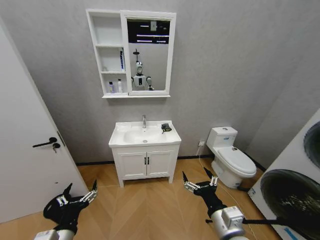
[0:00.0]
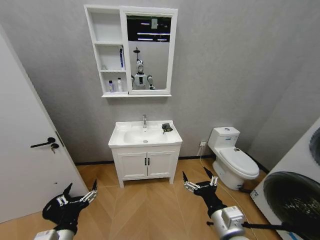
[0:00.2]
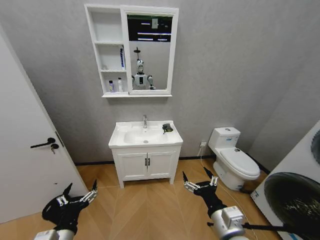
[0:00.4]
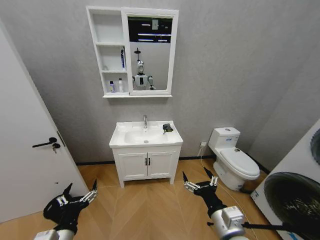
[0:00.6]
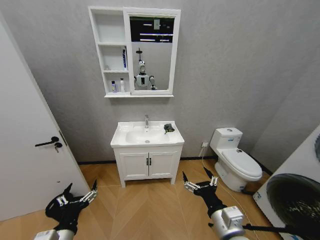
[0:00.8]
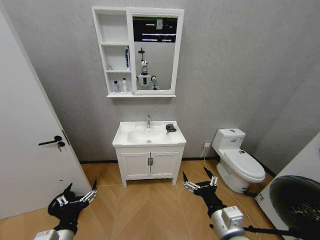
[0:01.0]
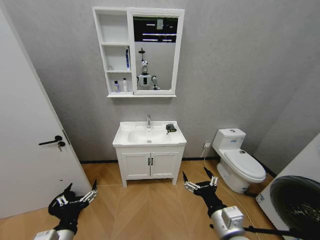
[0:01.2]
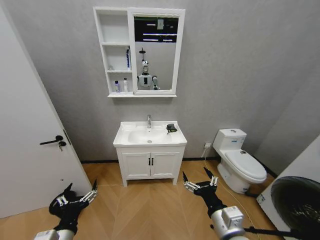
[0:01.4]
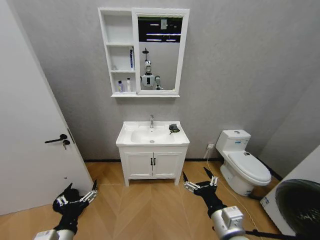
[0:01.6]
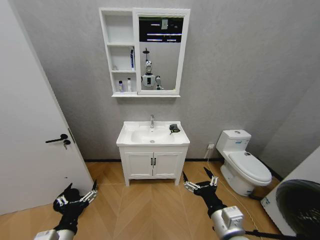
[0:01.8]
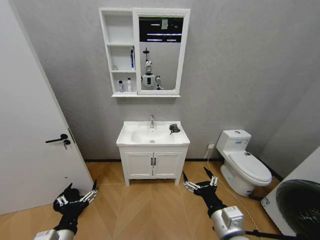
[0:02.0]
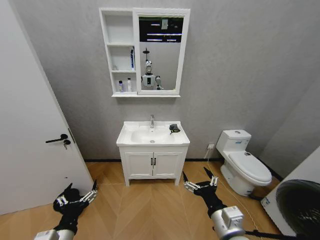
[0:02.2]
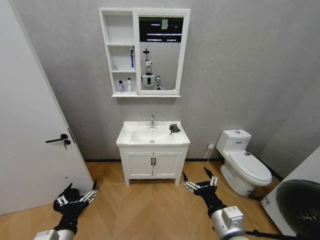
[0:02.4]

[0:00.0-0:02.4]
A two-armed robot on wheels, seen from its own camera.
Task of the whole recording: Move facial cleanser and shampoo from washbasin to cabinet, then wipe washbasin with towel.
0:00.0 to 0:02.4: Neither gripper changes place.

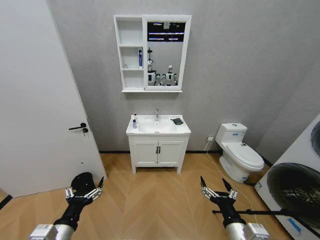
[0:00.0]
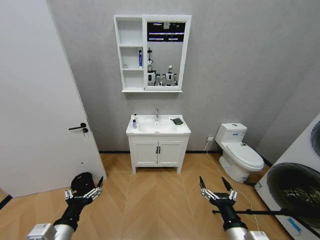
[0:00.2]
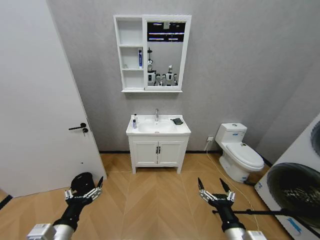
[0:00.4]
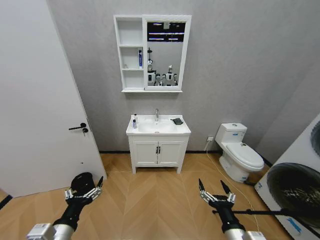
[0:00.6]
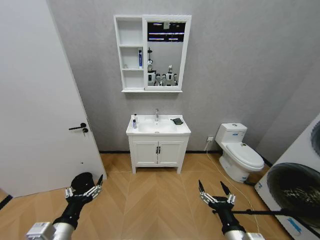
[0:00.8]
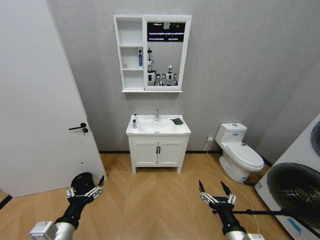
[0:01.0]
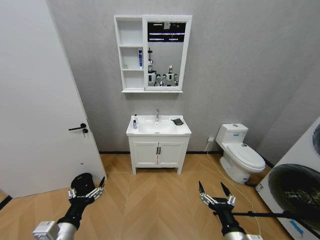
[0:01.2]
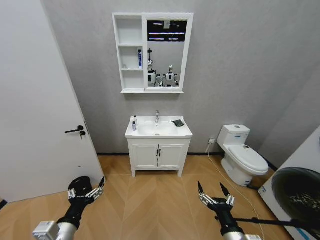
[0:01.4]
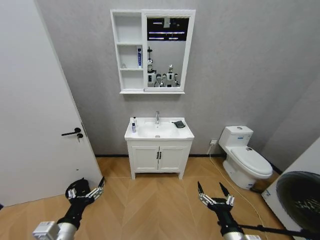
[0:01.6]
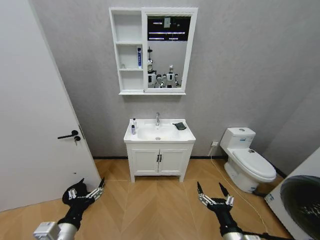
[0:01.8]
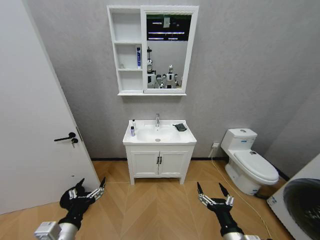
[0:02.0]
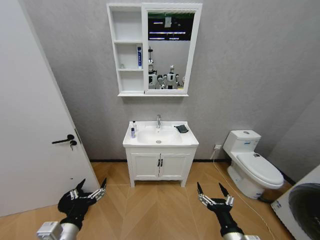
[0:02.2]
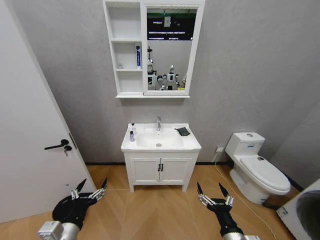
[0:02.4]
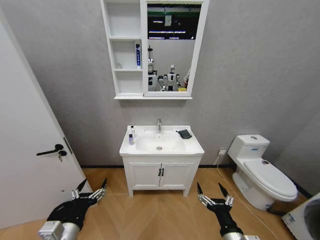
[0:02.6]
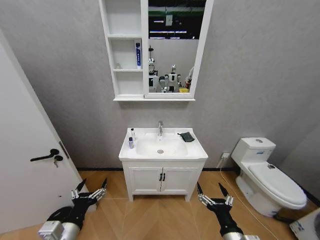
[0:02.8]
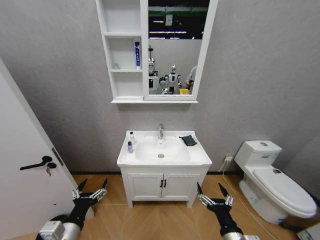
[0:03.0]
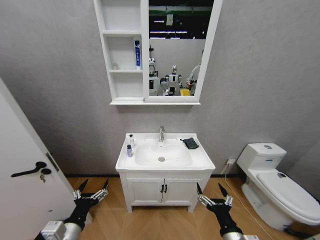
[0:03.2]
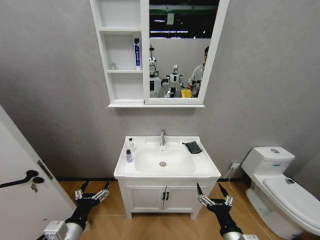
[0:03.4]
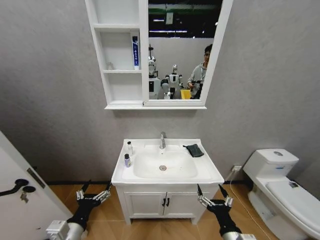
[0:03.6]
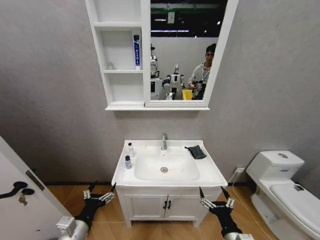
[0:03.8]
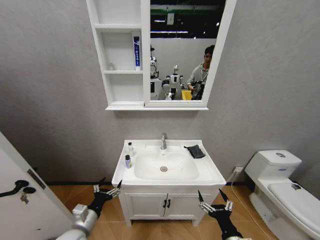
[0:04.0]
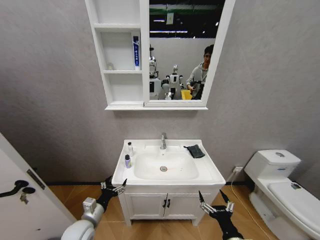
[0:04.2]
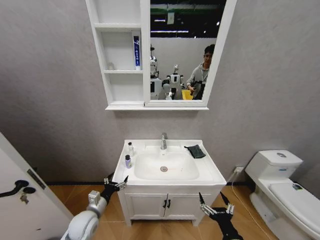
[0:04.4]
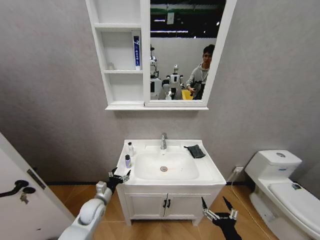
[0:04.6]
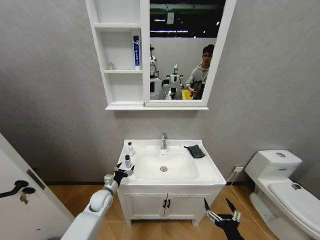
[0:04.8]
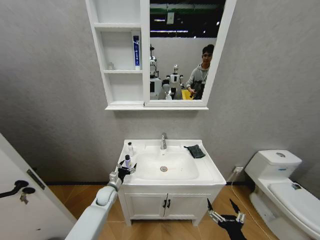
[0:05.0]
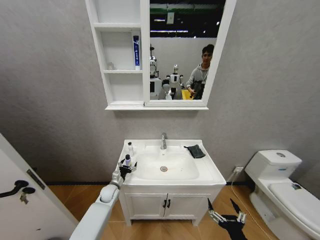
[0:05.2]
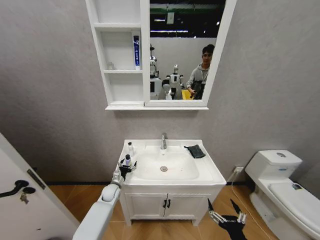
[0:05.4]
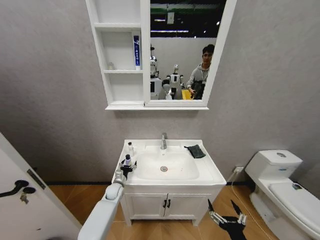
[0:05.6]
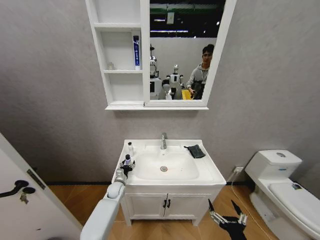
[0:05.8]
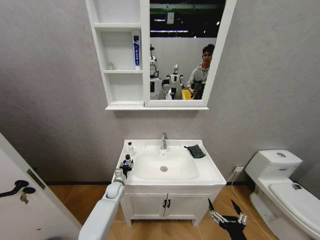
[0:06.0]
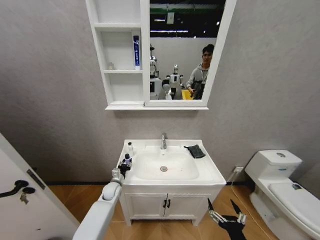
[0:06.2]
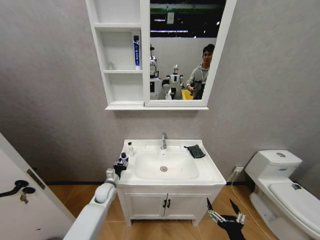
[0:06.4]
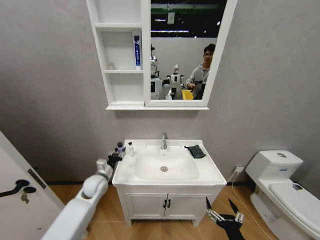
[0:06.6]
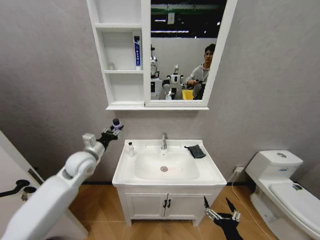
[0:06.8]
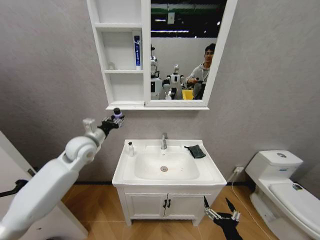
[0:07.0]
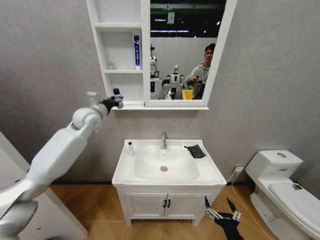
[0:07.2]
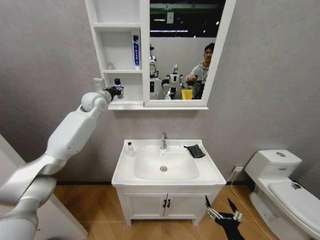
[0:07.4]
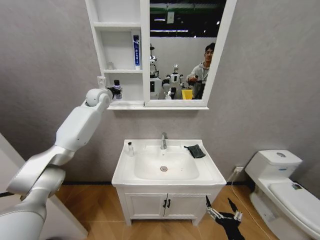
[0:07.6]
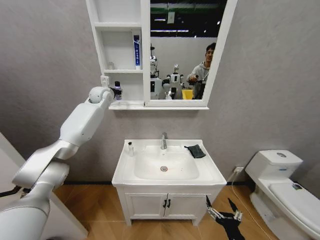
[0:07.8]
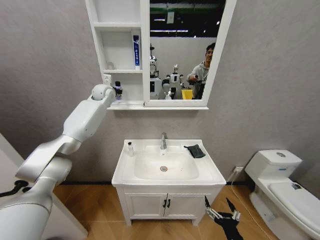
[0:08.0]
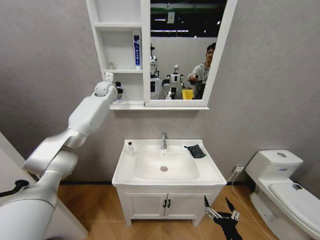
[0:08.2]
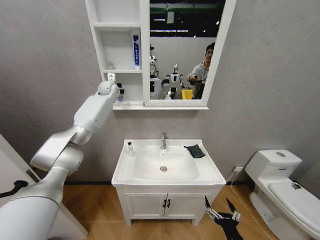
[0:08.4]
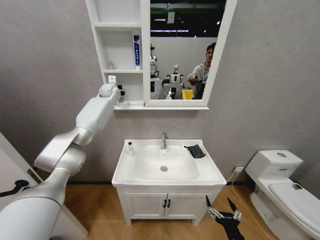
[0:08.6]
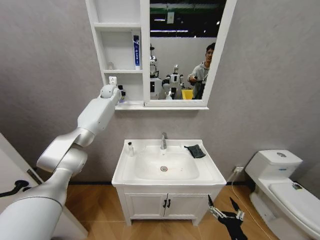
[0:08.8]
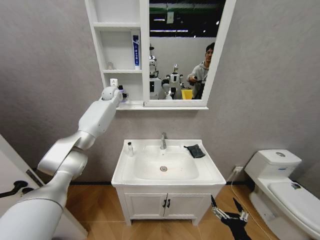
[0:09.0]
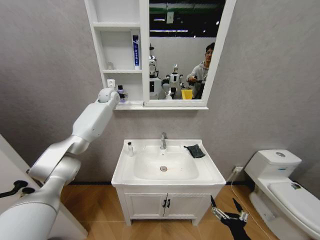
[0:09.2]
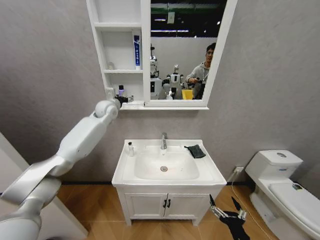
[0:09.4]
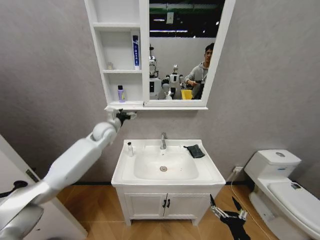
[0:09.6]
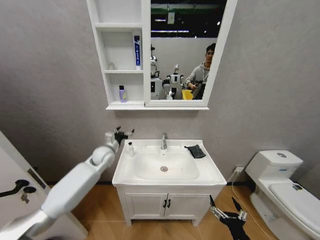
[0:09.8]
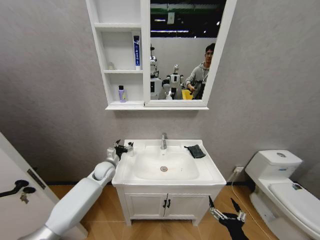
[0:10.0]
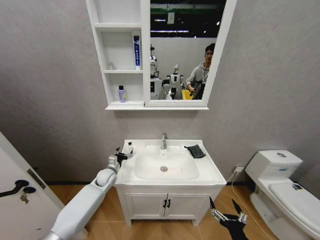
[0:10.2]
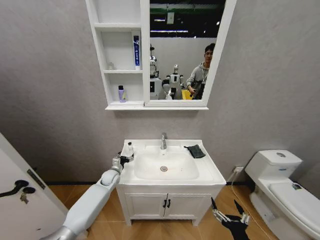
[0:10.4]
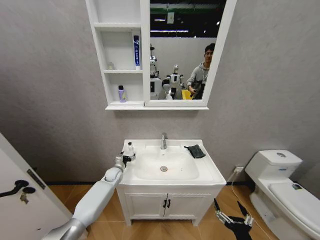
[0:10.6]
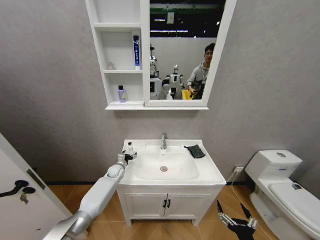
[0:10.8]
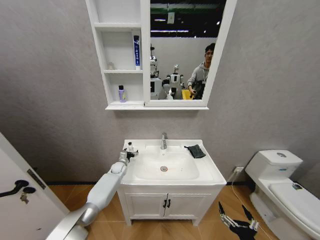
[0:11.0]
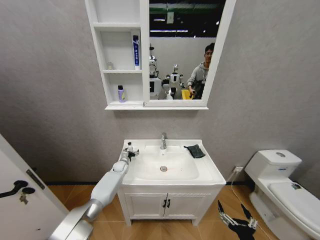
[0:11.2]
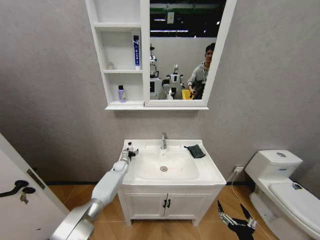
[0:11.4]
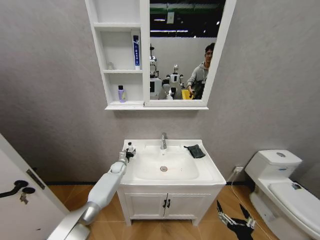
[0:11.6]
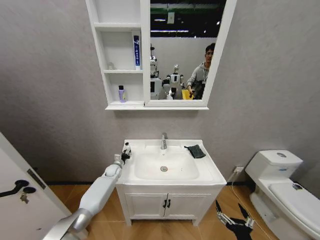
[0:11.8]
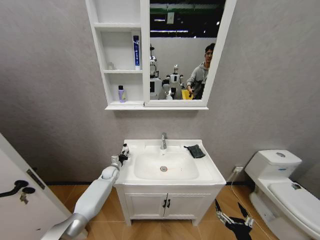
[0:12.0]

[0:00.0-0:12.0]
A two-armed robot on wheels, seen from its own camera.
Task of the whole recording: Move facial cleanser and shampoo from washbasin to cabinet, then wipe washbasin with towel.
0:03.0 to 0:04.4: The right gripper moves about 5 cm. The left gripper shifts about 20 cm forward and downward.
0:04.4 to 0:06.0: The left gripper travels forward and downward by approximately 20 cm, and closes up.
0:06.0 to 0:07.6: The left gripper shifts some 50 cm upward.
0:07.6 to 0:09.0: The left gripper travels forward by roughly 5 cm.
0:09.0 to 0:10.4: The left gripper travels downward and backward by some 50 cm, and opens its fingers.
0:10.4 to 0:12.0: The left gripper closes its fingers.

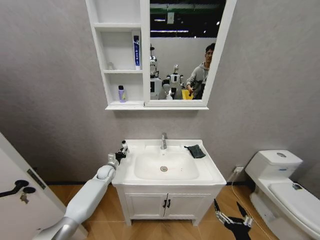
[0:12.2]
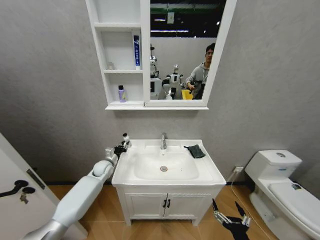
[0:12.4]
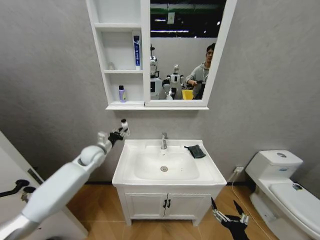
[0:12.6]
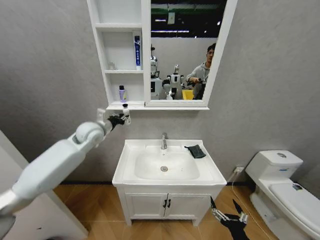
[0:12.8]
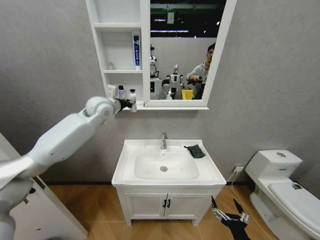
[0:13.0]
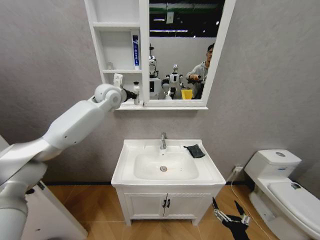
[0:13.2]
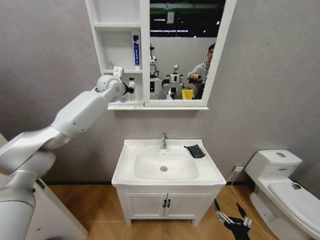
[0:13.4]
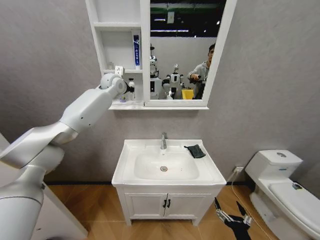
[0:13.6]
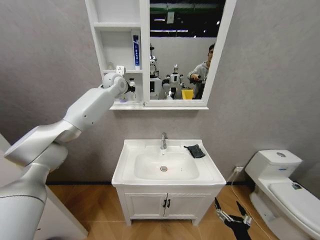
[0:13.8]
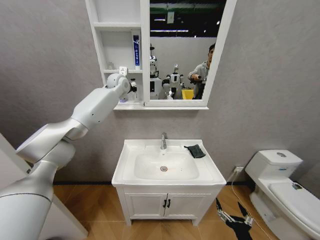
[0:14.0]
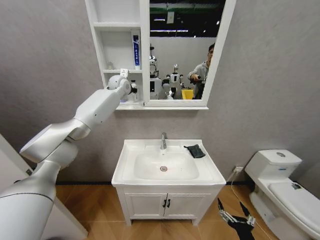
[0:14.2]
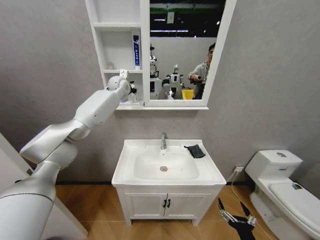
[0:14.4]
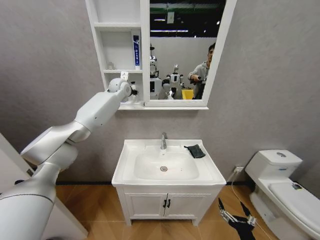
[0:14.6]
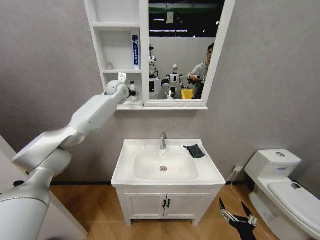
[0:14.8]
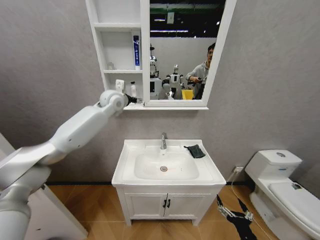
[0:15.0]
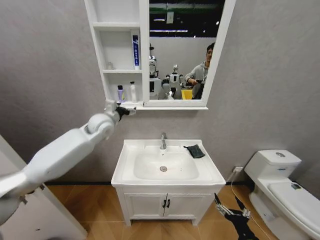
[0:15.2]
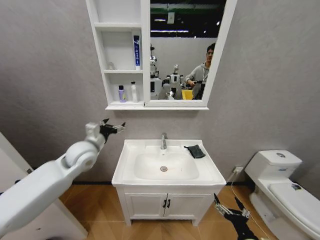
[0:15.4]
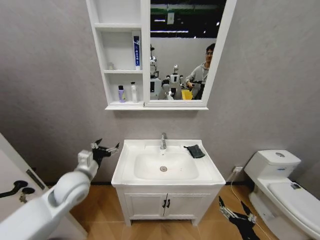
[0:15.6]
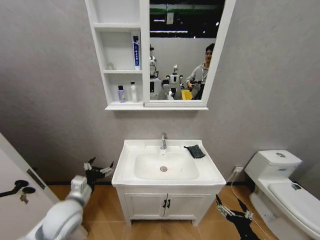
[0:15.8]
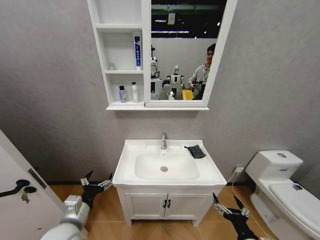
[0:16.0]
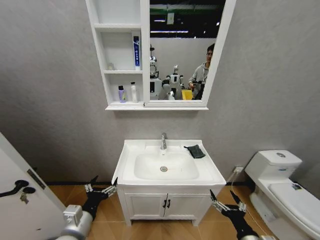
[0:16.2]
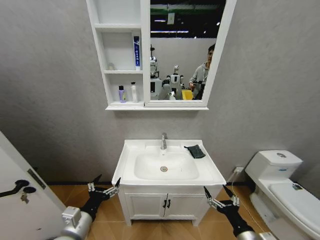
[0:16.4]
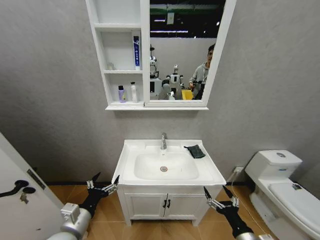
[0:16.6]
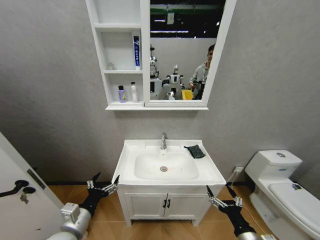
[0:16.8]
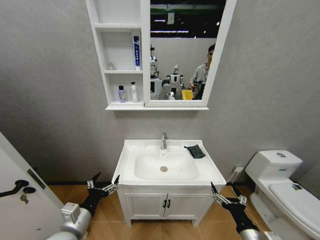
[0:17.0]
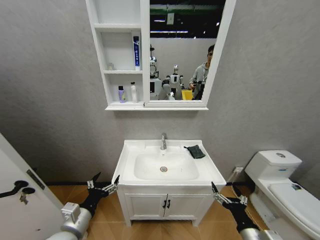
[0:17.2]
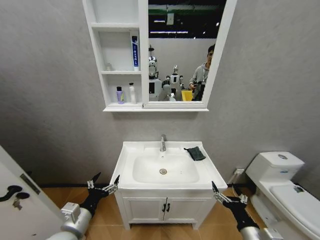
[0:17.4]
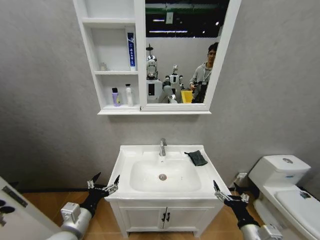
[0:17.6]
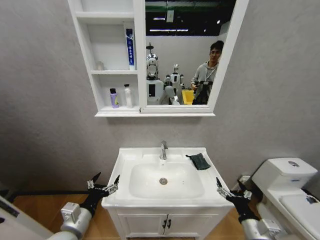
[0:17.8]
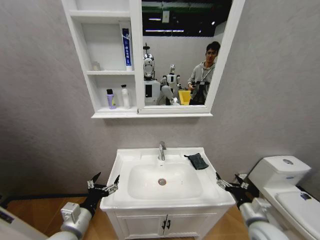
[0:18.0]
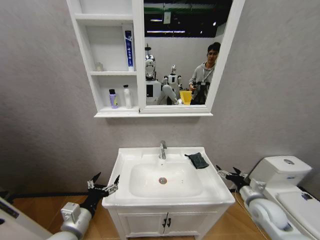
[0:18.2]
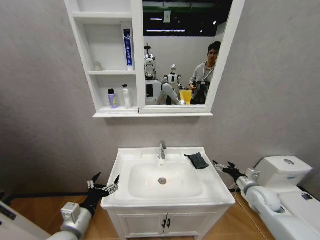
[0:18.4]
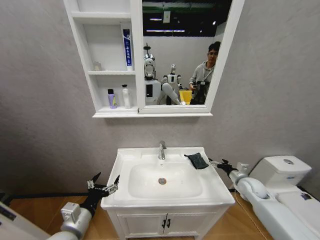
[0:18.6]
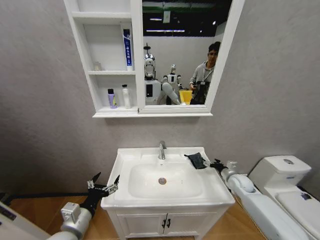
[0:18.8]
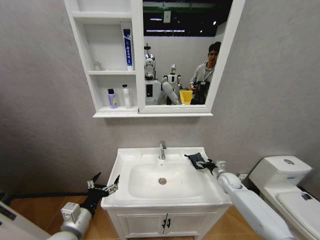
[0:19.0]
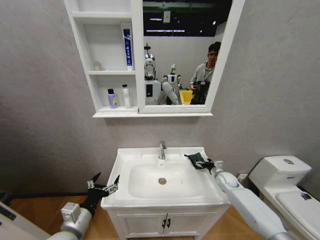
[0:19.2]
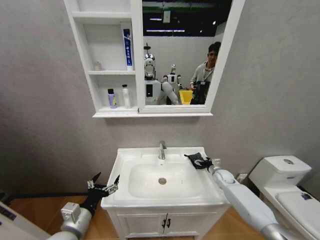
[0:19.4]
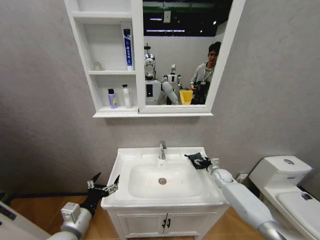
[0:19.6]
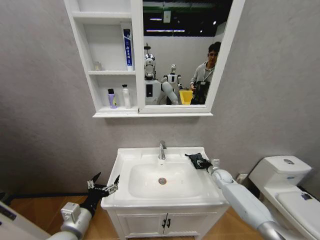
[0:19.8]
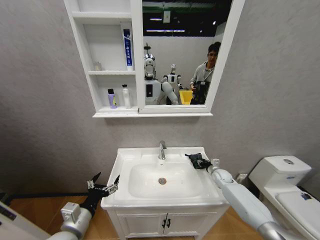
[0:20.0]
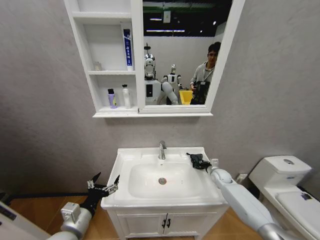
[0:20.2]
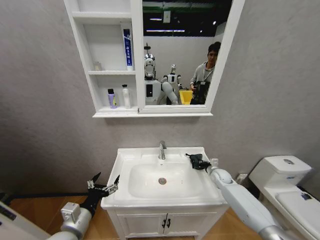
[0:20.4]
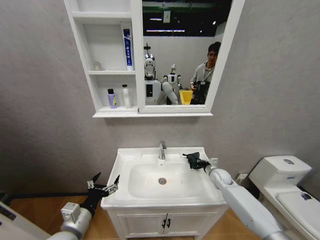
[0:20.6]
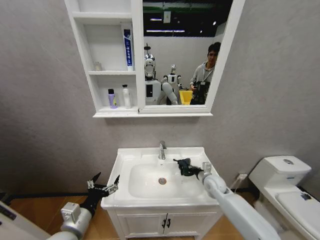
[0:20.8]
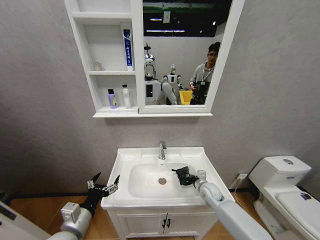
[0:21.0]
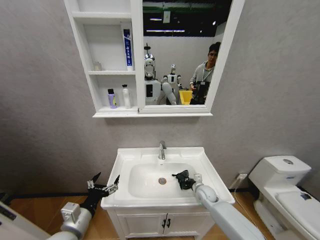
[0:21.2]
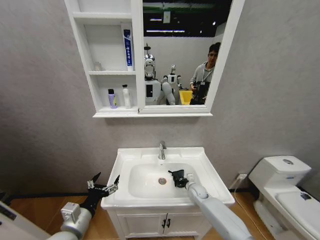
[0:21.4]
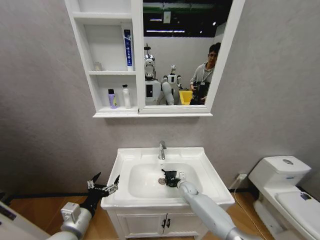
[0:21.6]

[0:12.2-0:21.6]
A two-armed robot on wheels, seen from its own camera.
Task of the whole recording: Move facial cleanser and shampoo from washbasin to cabinet, then wipe washbasin with towel.
0:12.2 to 0:13.8: The left gripper goes roughly 50 cm upward.
0:13.8 to 0:15.4: The left gripper heads backward and downward, covering some 30 cm, and opens up.
0:15.4 to 0:17.0: The left gripper shifts approximately 30 cm backward and downward.
0:17.0 to 0:18.4: The right gripper is displaced forward and to the right by some 25 cm.
0:18.4 to 0:20.0: The right gripper travels forward and downward by roughly 20 cm, and closes its fingers.
0:20.0 to 0:21.6: The right gripper heads to the left and downward, covering about 20 cm, and closes its fingers.
